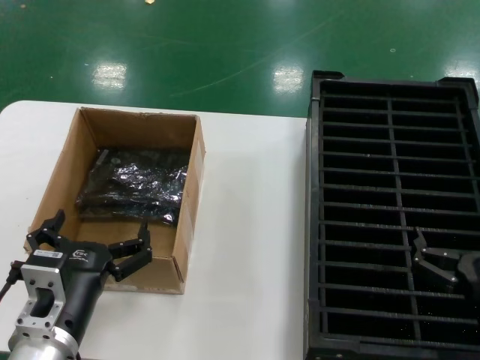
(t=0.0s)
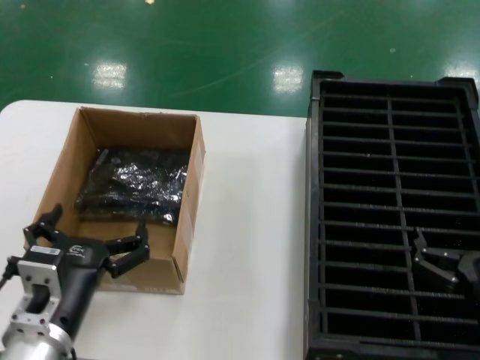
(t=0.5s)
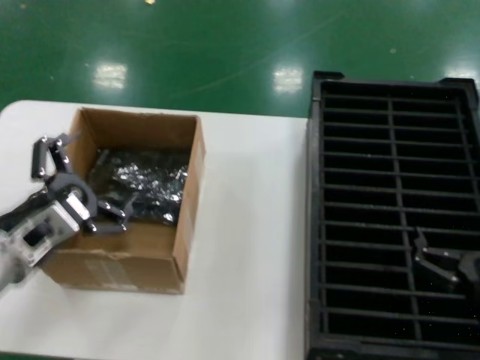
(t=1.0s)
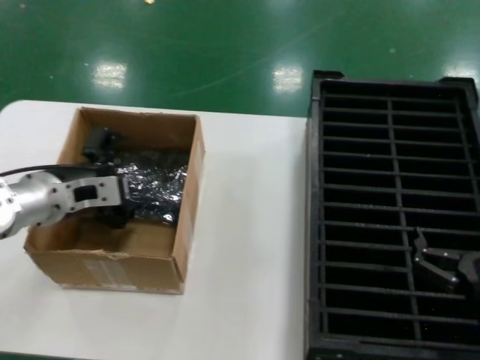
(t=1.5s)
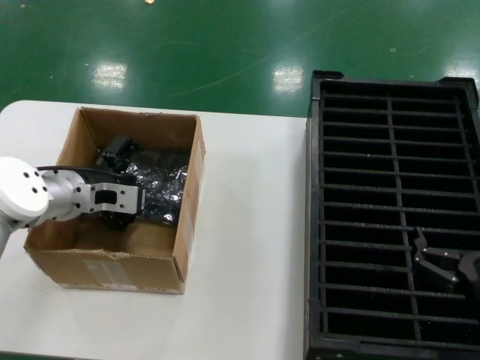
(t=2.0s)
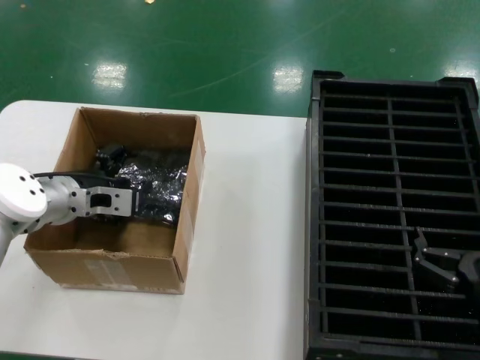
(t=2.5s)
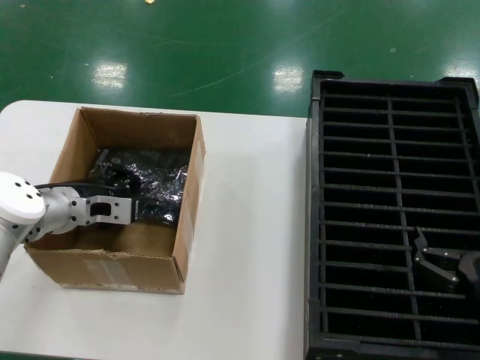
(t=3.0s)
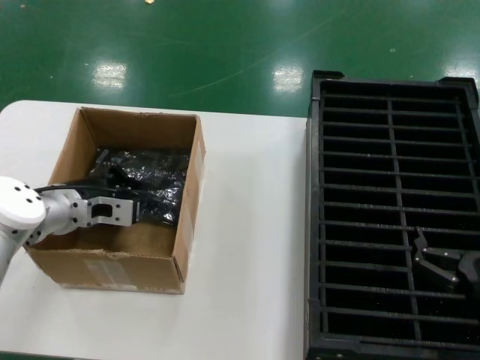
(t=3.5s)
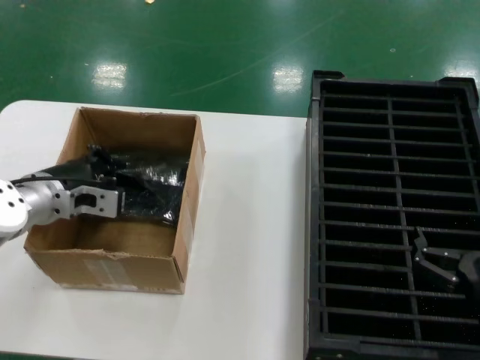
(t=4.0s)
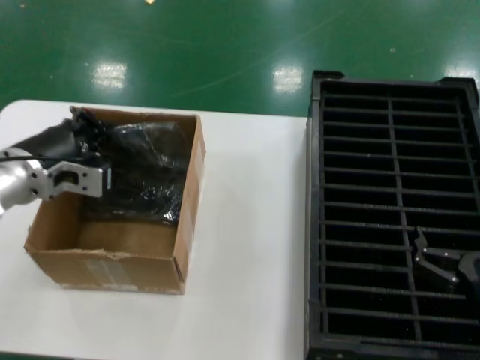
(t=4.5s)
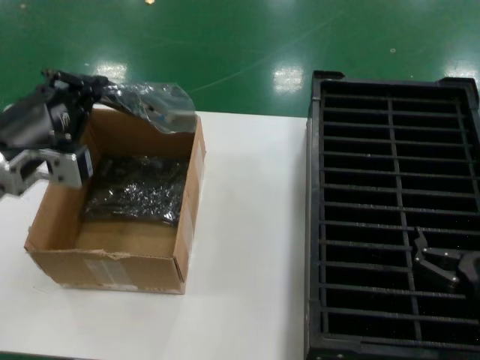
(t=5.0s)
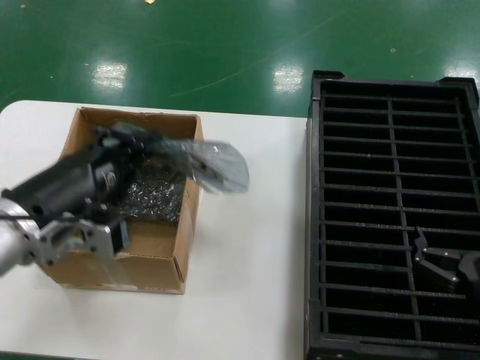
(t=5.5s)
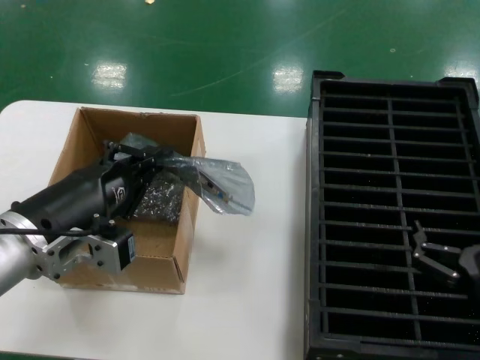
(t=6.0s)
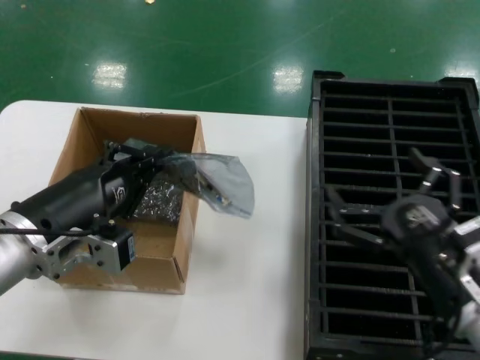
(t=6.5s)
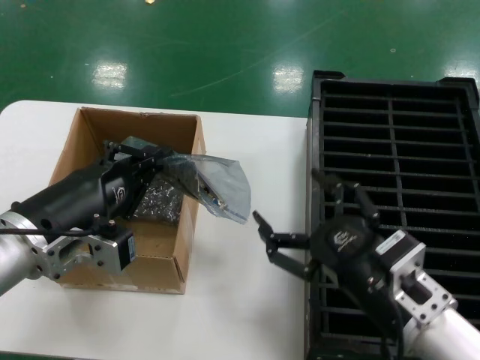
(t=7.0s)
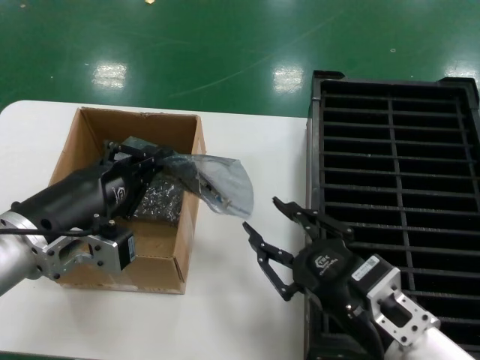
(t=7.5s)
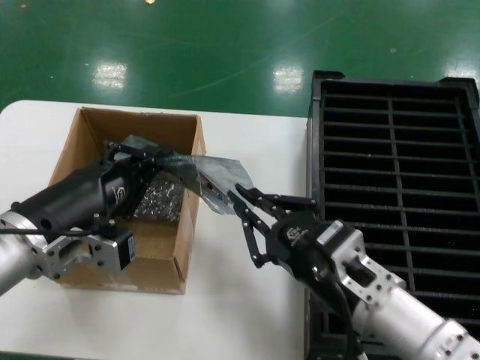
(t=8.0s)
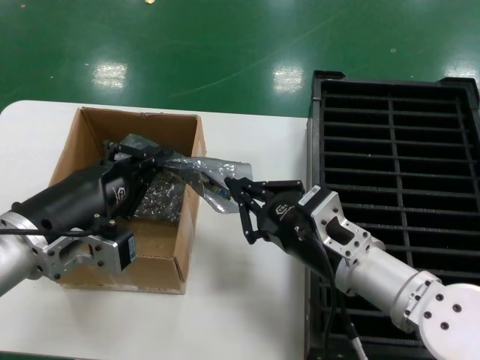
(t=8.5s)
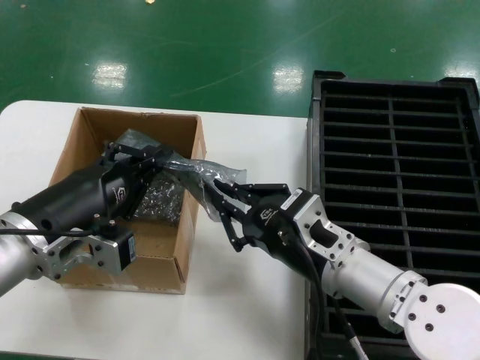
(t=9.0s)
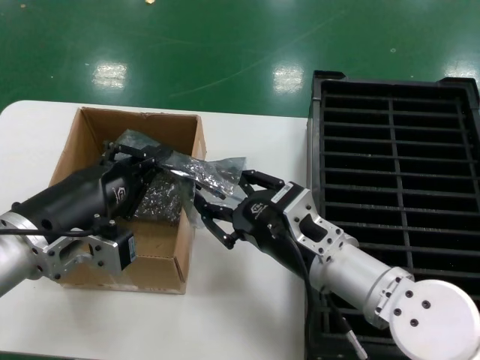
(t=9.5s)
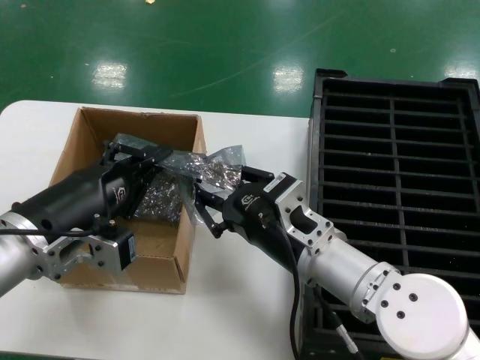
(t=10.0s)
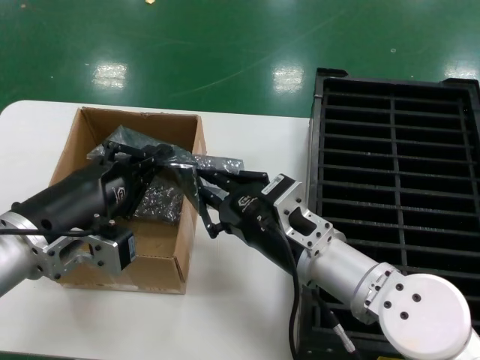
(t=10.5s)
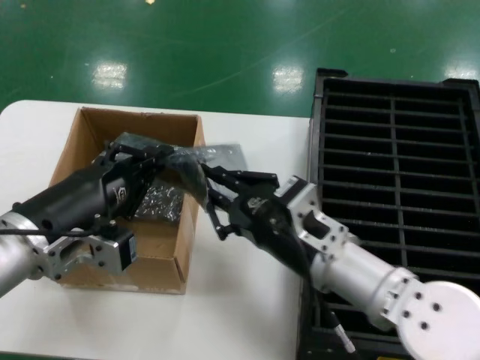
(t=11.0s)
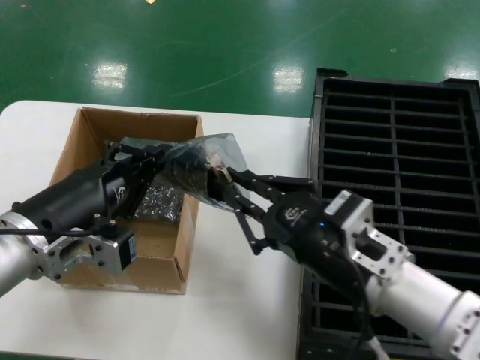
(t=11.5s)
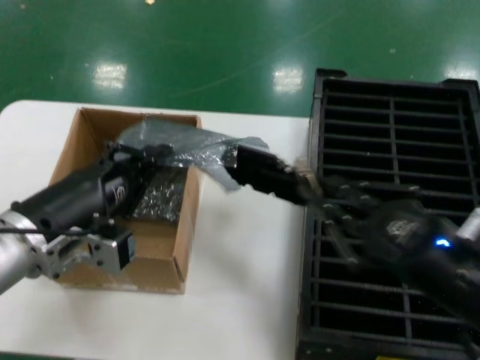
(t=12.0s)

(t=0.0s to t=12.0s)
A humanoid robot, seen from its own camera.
Task of the whole recording: take out graphics card from box remove packaging put into black container.
Step, t=0.0s - t=3.0s: Grasp the bag.
Step, t=3.5s - t=5.5s: Lift the bag.
t=0.0s - t=2.0s: The left hand travels forward and upward by some 25 cm.
t=2.0s - t=4.0s: There are only small adjustments of the hands.
t=4.0s - t=6.0s: The left hand shifts about 15 cm backward.
t=6.0s - t=8.0s: The right hand travels to the left by roughly 15 cm.
t=8.0s - t=10.0s: The right hand moves forward and to the left, about 10 cm.
t=10.0s - t=12.0s: The right hand is displaced to the right and backward by approximately 20 cm.

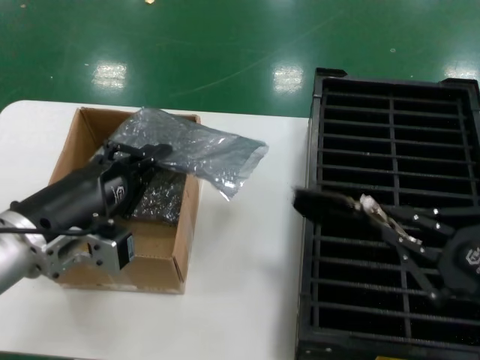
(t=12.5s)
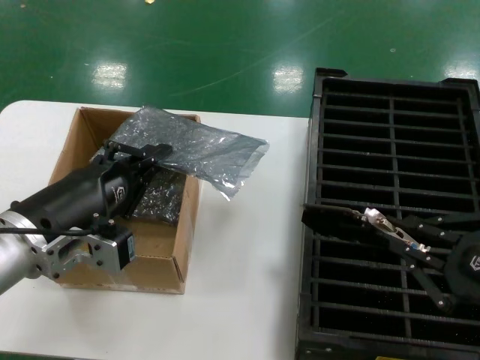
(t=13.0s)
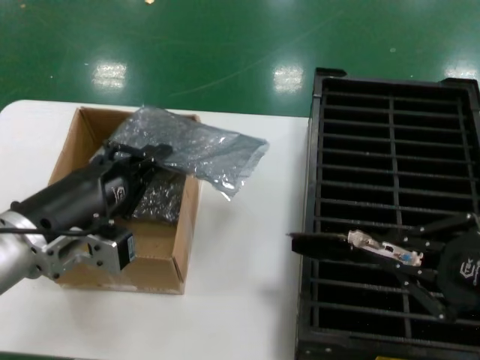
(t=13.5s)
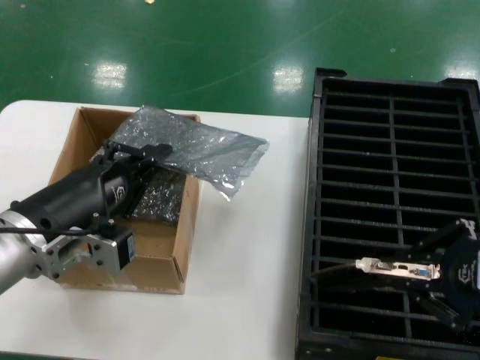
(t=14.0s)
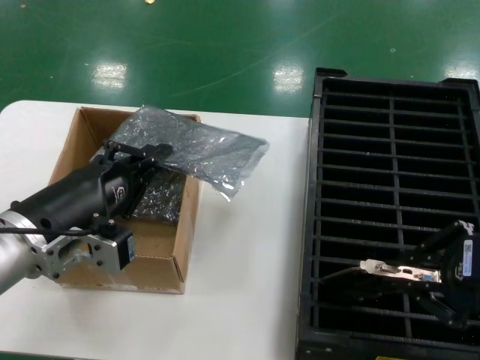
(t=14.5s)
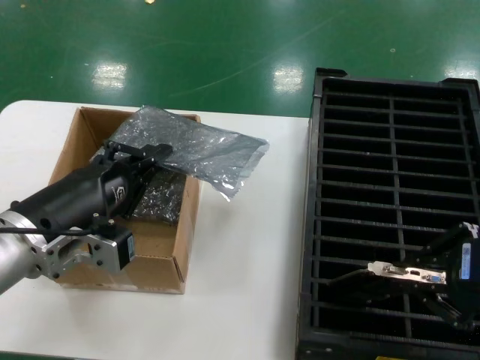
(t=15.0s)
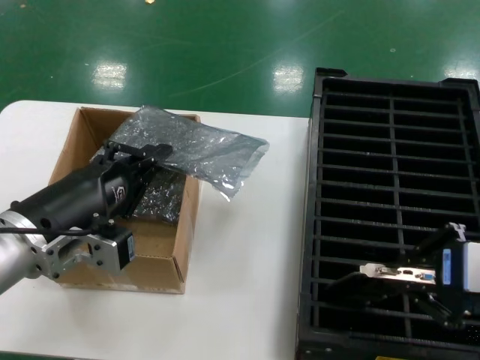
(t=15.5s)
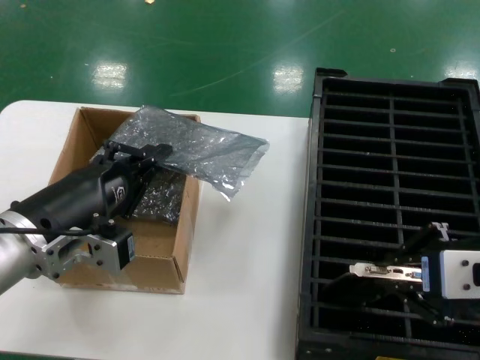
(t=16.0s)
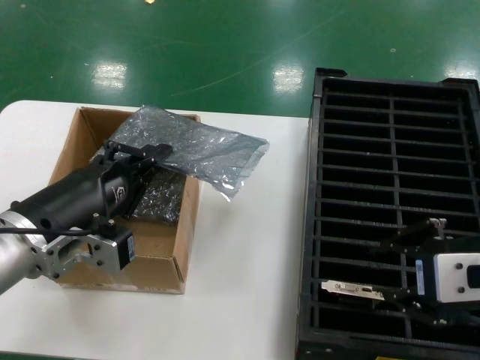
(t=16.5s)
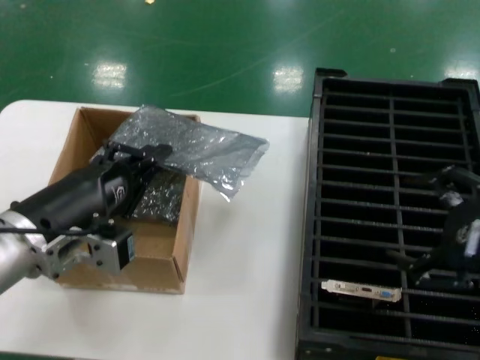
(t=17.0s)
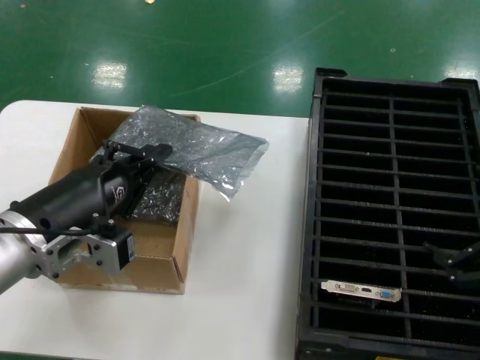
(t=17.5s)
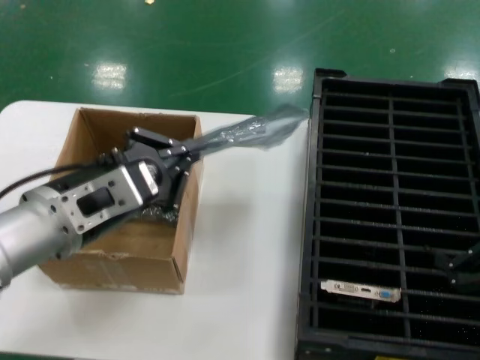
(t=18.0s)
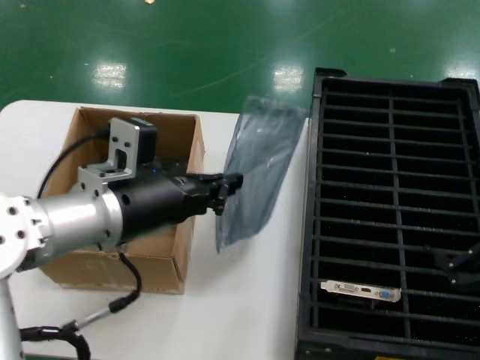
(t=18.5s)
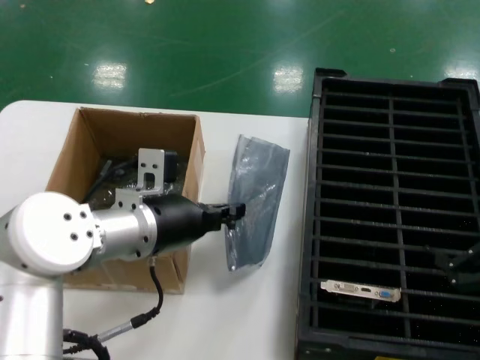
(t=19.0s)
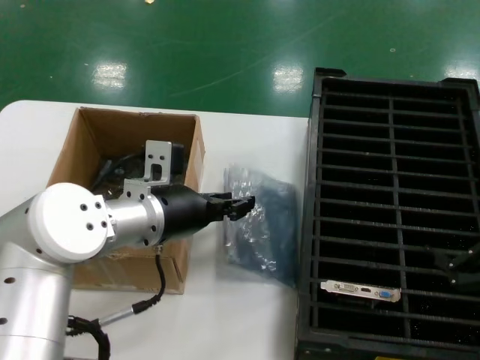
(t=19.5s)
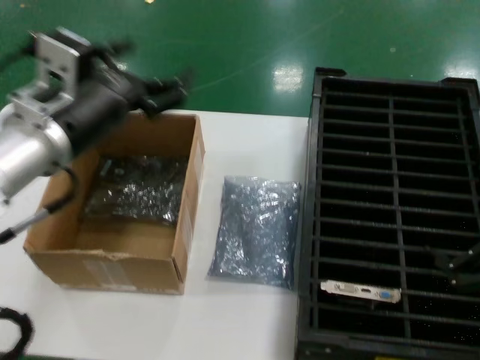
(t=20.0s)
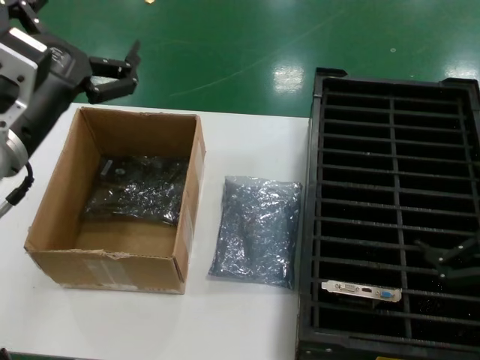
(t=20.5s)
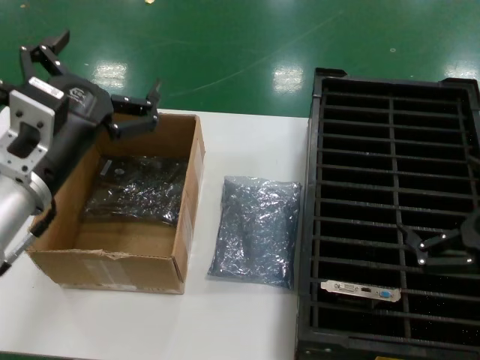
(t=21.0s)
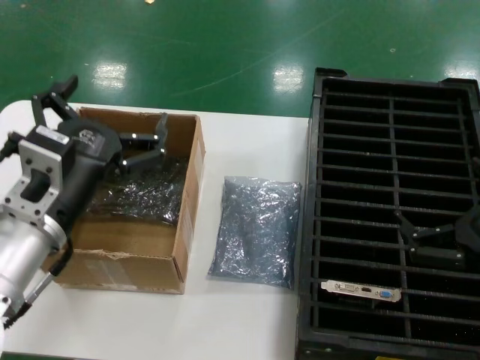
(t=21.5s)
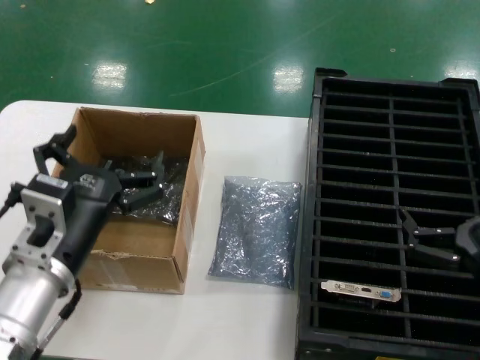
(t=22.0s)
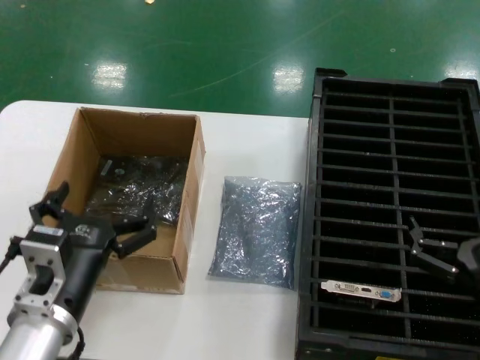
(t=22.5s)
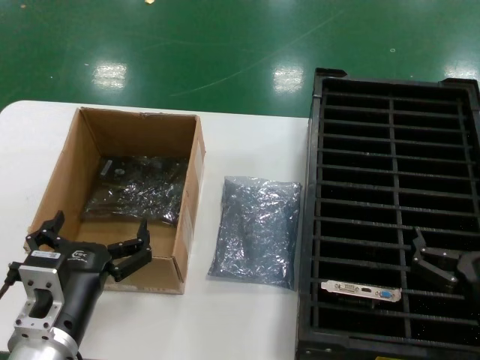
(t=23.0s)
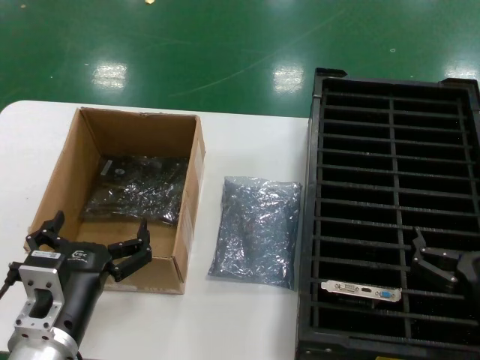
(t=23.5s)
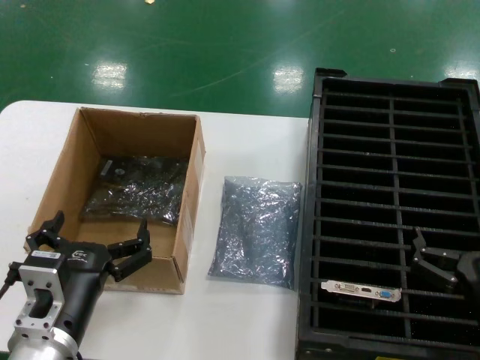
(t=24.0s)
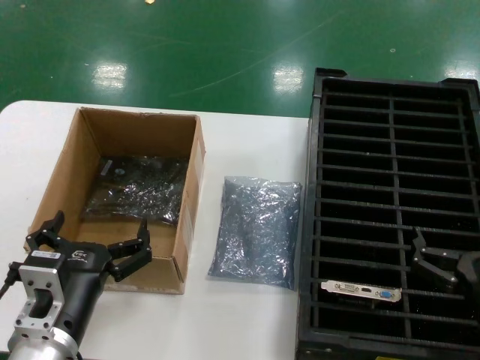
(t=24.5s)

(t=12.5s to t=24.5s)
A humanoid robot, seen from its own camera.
Task of the whole recording: take out graphics card from box remove packaging put into black container.
Step, t=12.5s - t=16.5s: Place the hard disk in the hard disk enclosure.
Step, t=17.0s - t=23.0s: Place the down the bag.
t=12.5s - t=14.5s: The right hand is displaced upward by roughly 5 cm.
t=14.5s - t=16.5s: The hands move only a little.
t=16.5s - t=18.5s: The right hand shifts roughly 10 cm to the right. Meanwhile the left hand moves to the right, about 5 cm.
t=18.5s - t=20.5s: The left hand changes place by about 5 cm.
t=20.5s - t=22.5s: The hands both shift downward by about 15 cm.
t=22.5s - t=24.5s: The hands make only small movements.

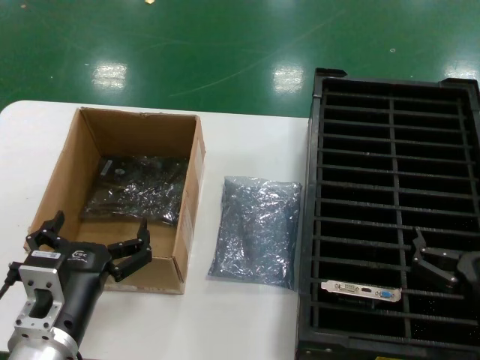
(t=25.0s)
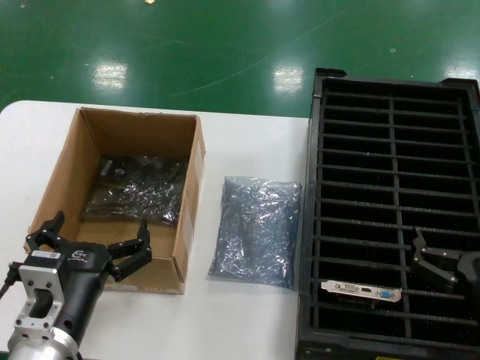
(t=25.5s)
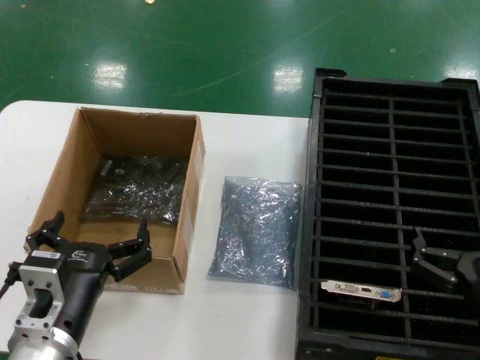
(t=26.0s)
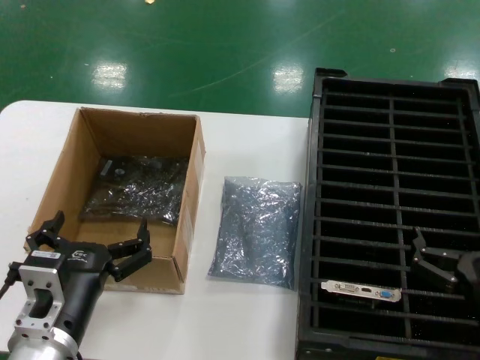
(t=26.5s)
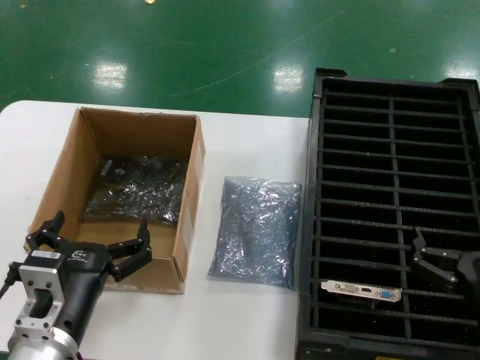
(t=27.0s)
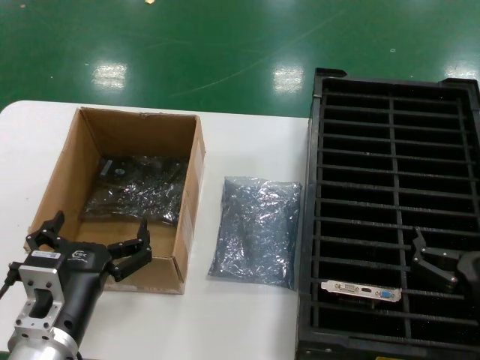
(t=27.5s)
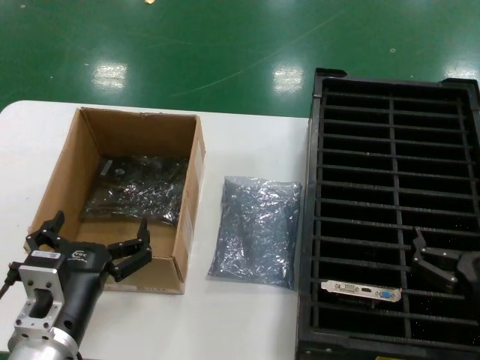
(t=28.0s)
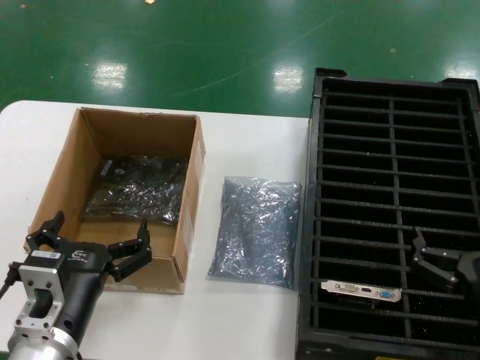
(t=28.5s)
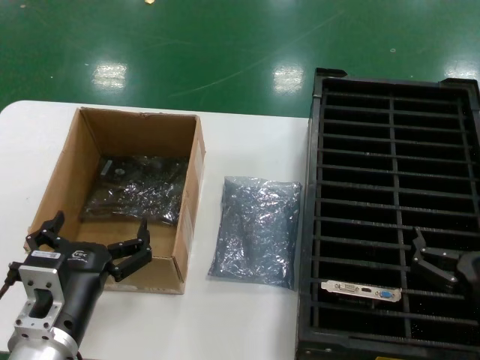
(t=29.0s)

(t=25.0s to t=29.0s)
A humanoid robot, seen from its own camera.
Task of the whole recording: take out graphics card from box remove packaging put into black container.
t=25.0s - t=29.0s: Both hands stay about where they are.
